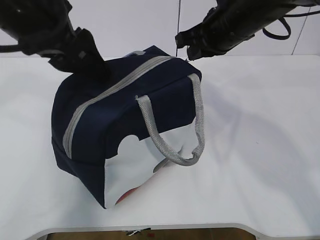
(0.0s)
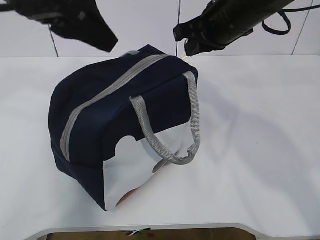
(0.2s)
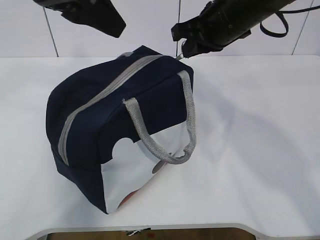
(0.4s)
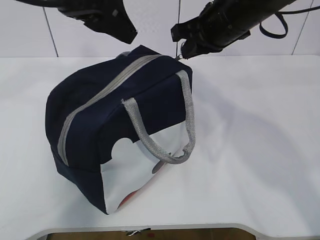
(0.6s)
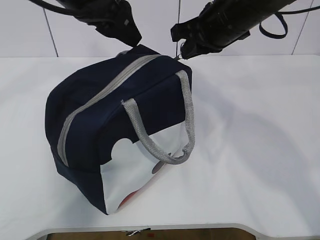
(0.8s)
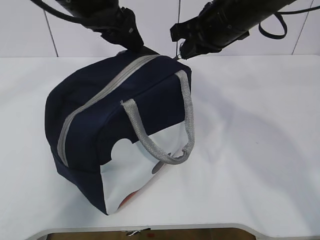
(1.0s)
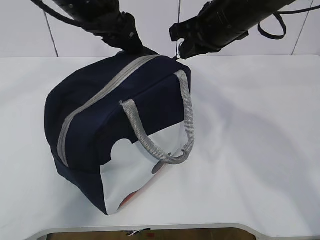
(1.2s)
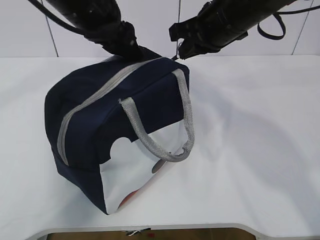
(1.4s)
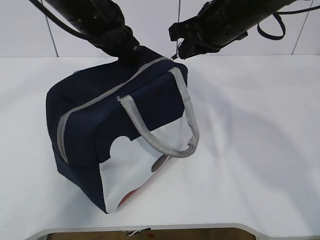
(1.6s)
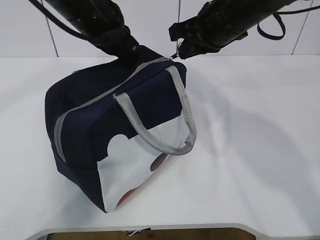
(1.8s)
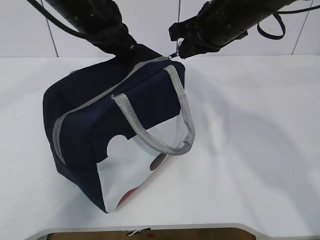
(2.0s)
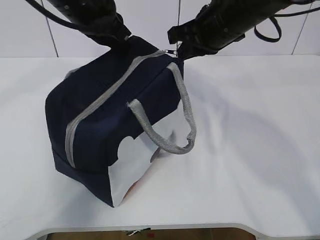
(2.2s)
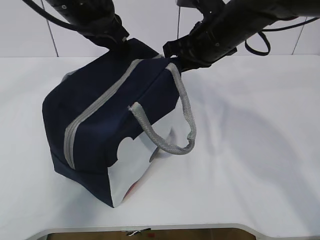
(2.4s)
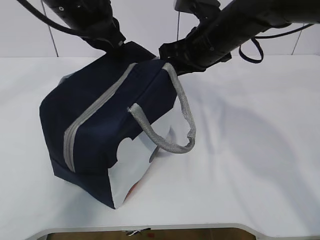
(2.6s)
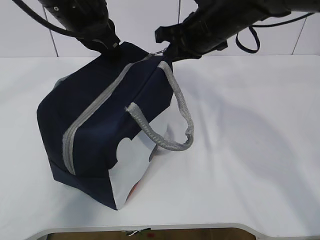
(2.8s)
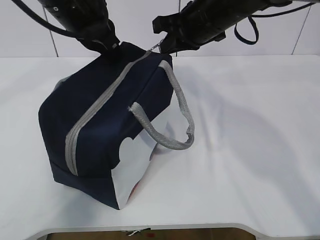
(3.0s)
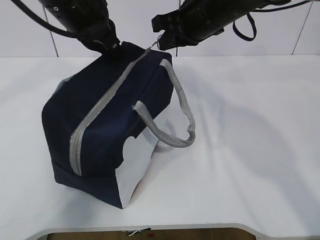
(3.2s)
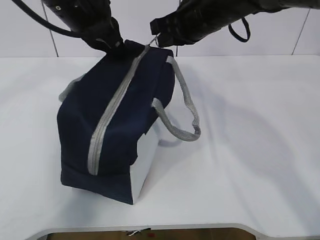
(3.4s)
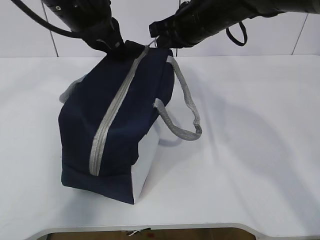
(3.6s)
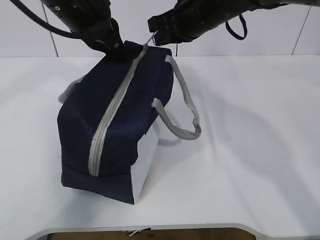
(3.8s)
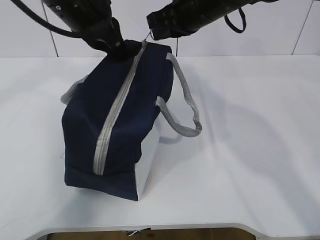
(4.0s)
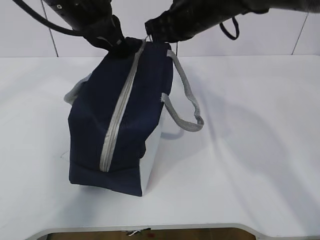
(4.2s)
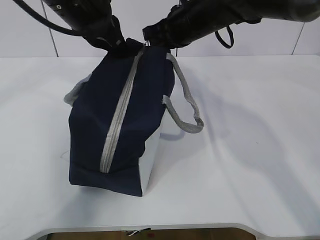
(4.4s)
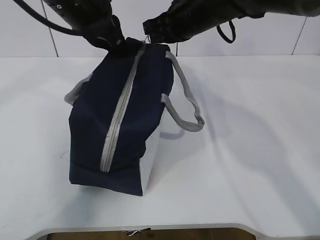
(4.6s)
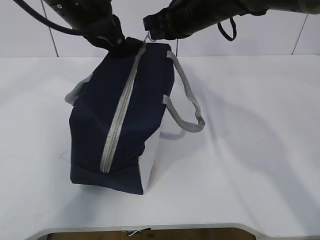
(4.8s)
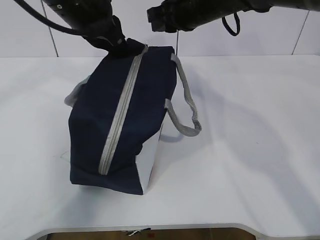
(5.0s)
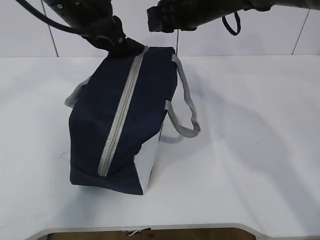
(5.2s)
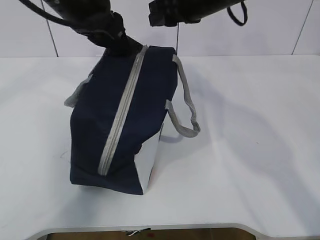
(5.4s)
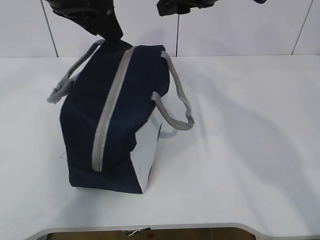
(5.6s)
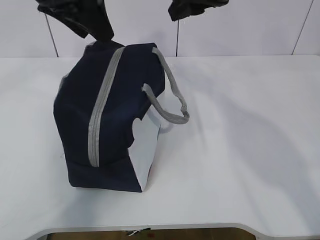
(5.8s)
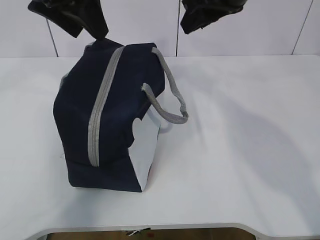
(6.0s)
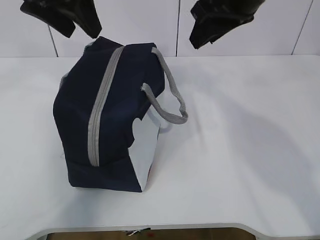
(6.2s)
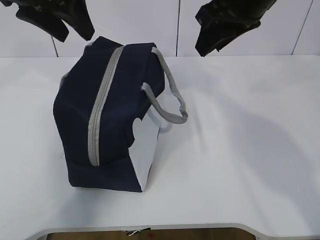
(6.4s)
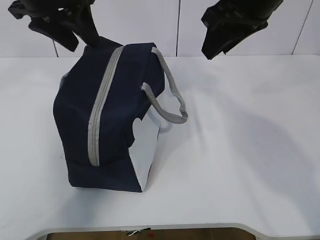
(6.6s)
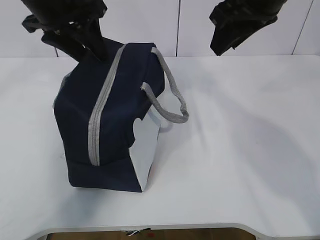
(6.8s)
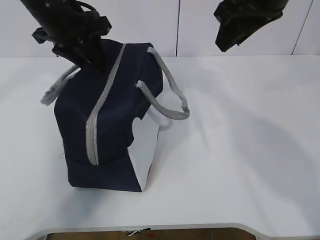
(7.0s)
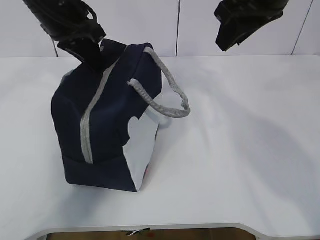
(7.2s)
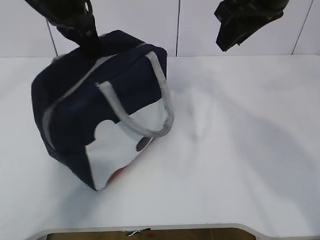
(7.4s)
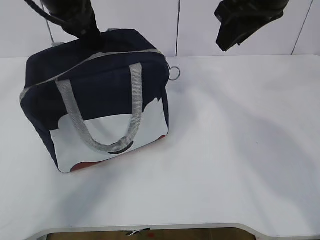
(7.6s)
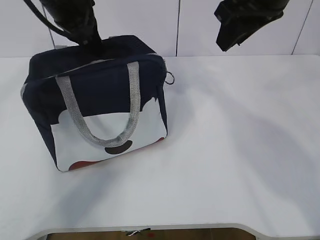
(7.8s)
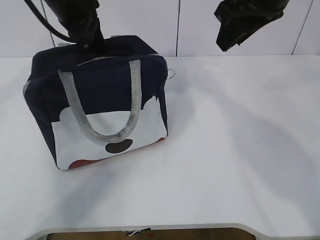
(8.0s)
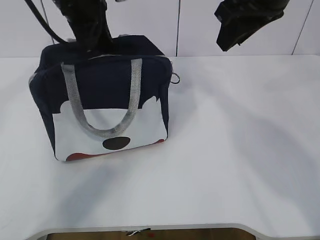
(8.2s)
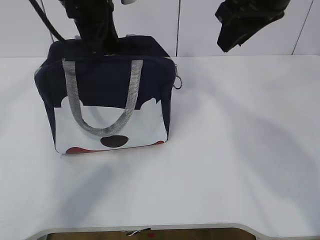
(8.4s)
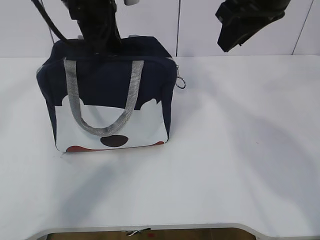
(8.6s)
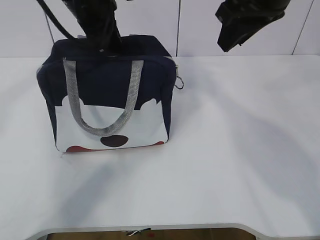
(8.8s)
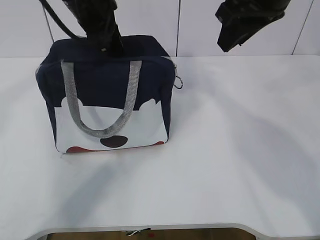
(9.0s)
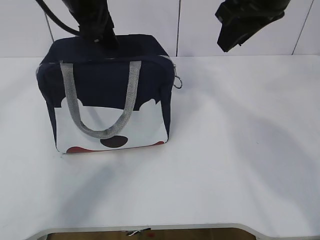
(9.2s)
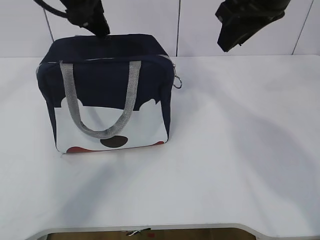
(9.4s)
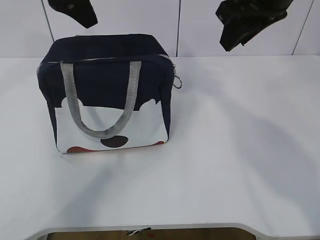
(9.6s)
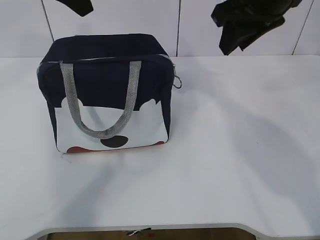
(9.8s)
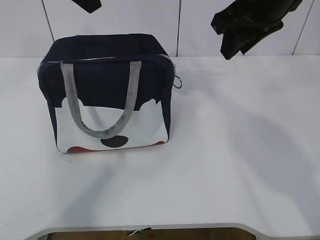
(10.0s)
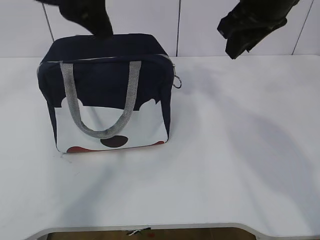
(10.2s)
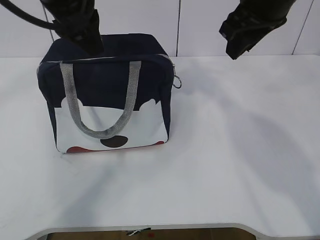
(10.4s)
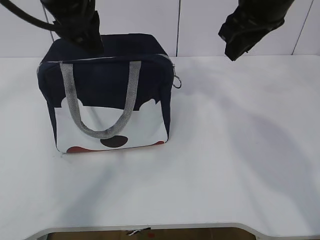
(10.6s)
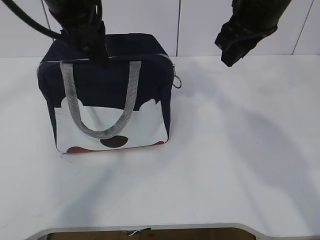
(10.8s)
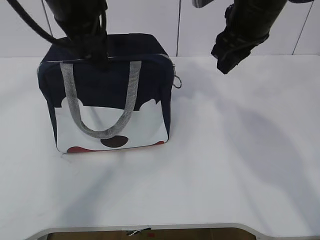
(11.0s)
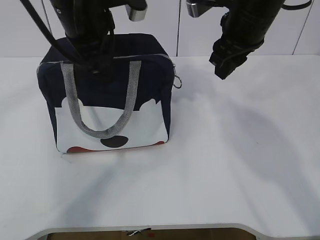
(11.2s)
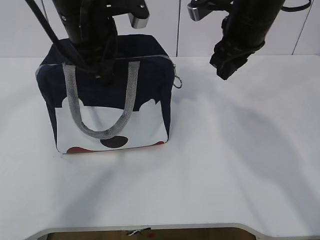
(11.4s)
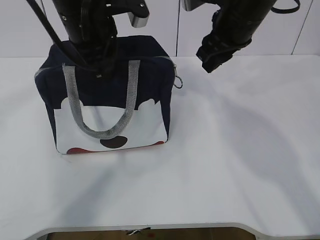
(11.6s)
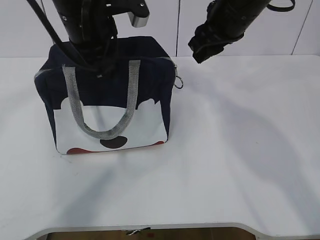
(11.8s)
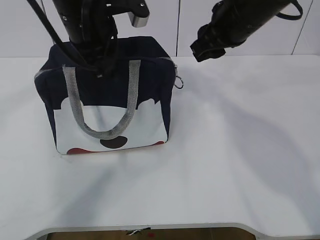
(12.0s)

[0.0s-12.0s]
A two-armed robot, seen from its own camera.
Step, 0.0s to 7.2s: Pull the zipper with your right hand.
Step, 7.4s to 8.0s: Grab the lunch bag with your left hand.
0.0s to 1.6s: The left gripper shifts some 10 cm forward, and closes up.
1.6s to 3.0s: The grippers move only a little.
4.4s to 6.0s: The left gripper travels upward by some 5 cm, and opens; the right gripper goes roughly 10 cm upward and backward, and opens its fingers.
6.0s to 7.6s: The left gripper is displaced forward by approximately 5 cm, and closes up.
7.6s to 9.0s: The left gripper opens its fingers.
9.0s to 10.4s: The left gripper moves backward and upward, some 10 cm.
10.4s to 12.0s: The left gripper is displaced downward by about 5 cm, and closes its fingers. Meanwhile the right gripper moves roughly 5 cm.

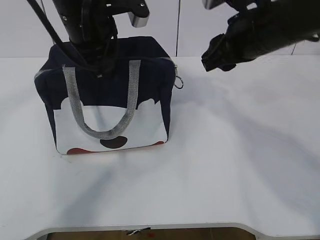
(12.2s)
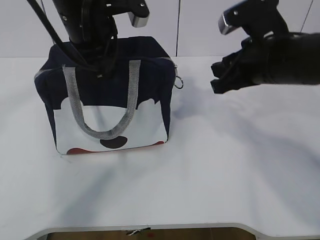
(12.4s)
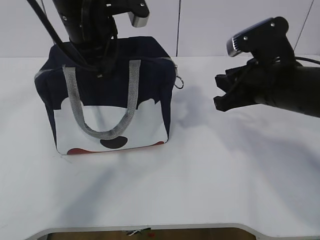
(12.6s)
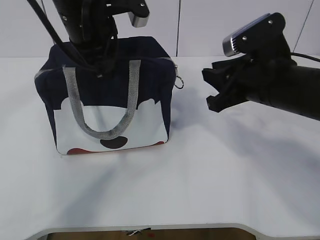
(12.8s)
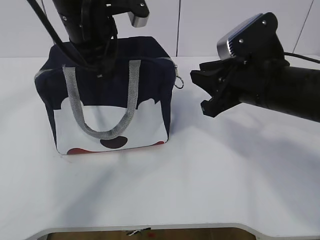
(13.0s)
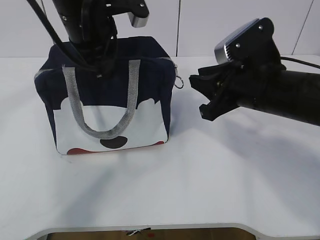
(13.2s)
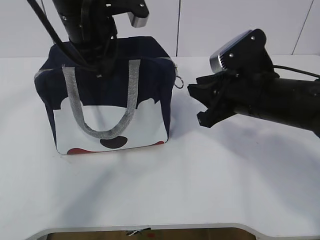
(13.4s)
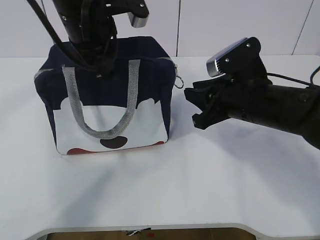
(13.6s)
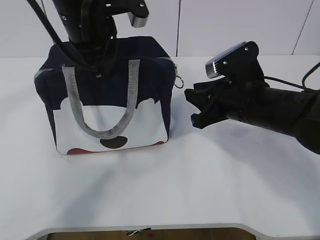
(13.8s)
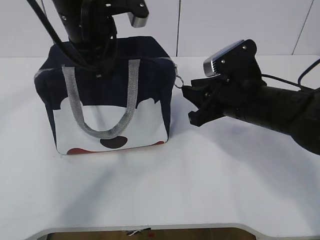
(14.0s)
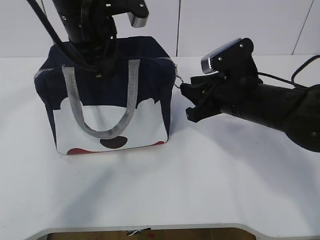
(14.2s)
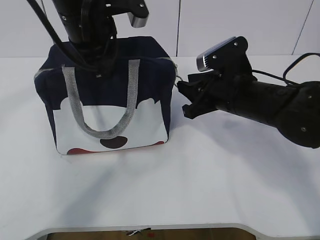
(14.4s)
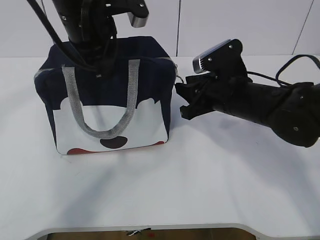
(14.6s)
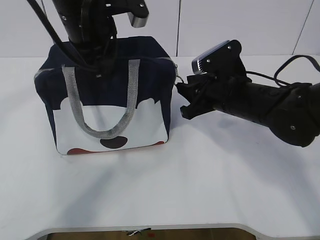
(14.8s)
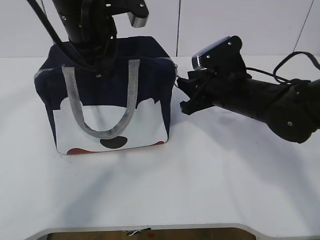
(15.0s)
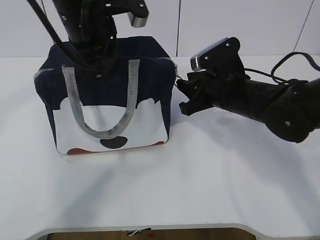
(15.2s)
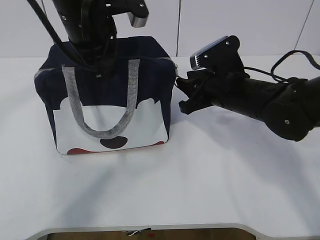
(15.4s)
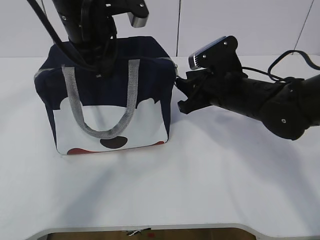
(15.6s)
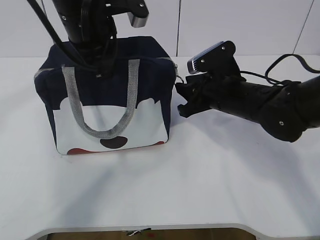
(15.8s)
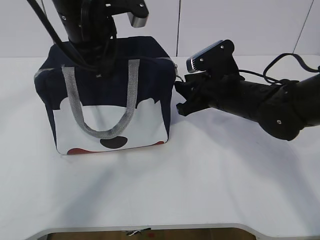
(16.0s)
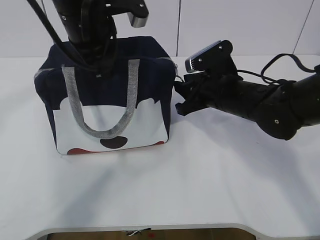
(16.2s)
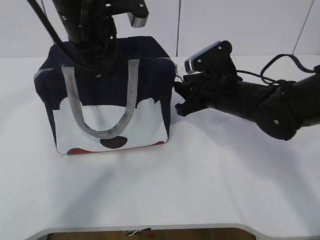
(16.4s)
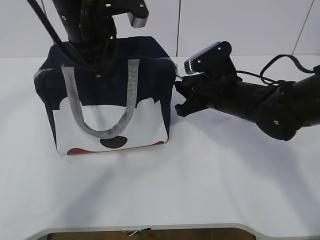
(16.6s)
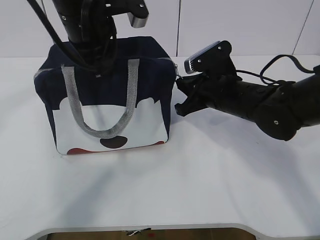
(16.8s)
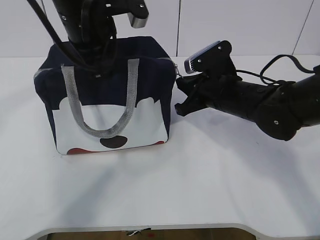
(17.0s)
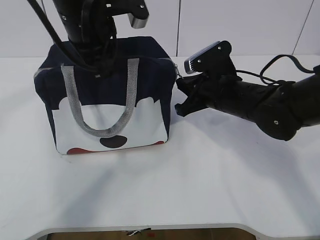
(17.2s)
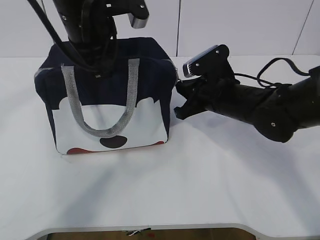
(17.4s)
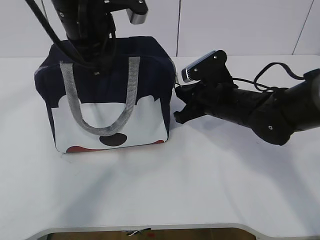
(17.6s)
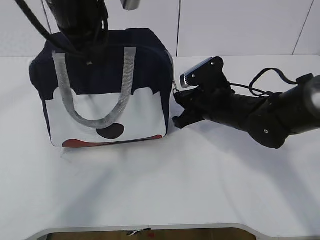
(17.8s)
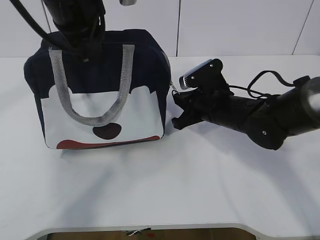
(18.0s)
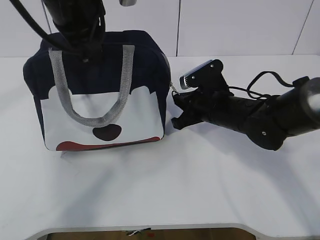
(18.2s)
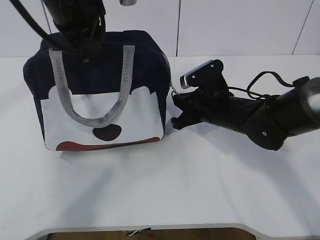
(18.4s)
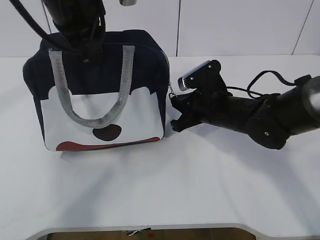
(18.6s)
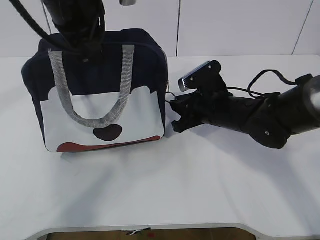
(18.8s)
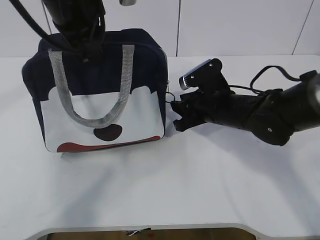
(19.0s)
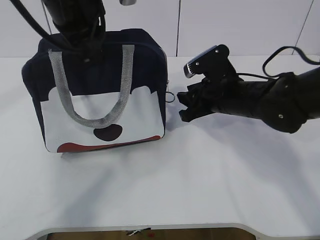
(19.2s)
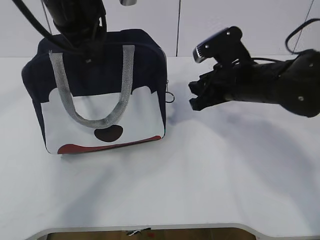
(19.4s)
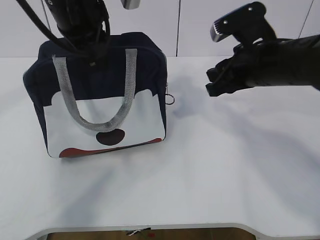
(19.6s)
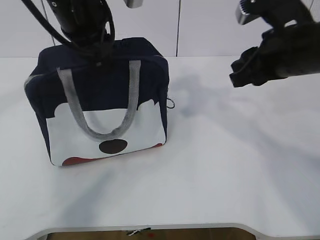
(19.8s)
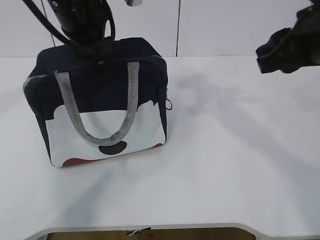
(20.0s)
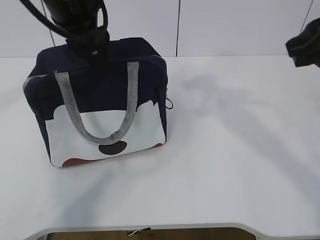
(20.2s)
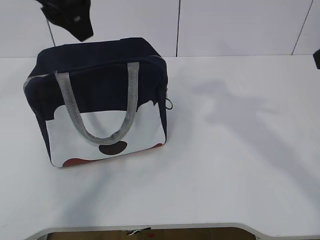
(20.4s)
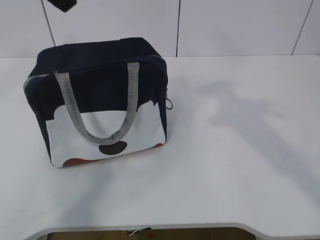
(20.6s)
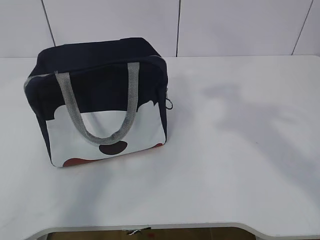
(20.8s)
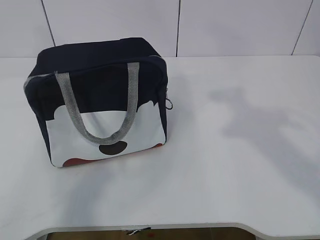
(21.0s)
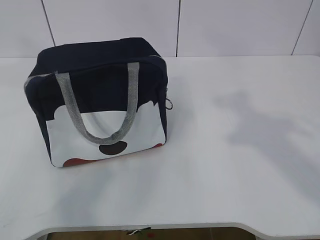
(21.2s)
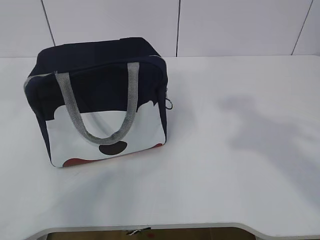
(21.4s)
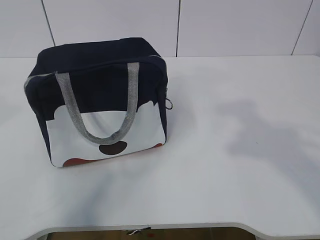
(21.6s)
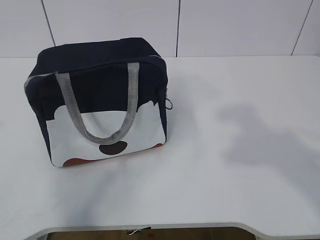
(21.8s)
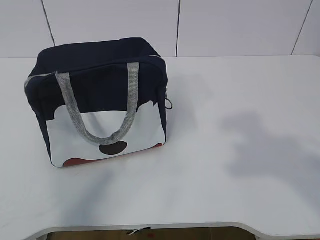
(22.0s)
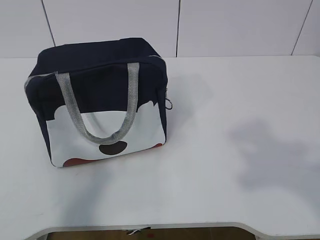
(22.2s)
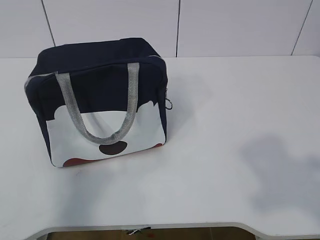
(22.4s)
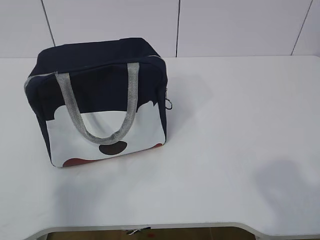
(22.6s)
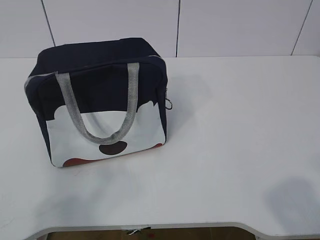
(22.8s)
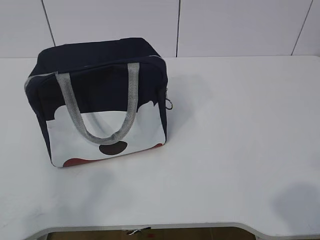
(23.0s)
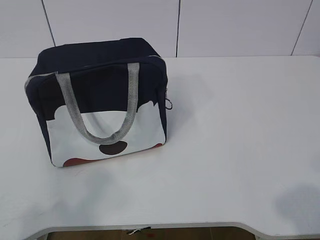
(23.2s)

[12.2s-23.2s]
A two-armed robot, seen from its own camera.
12.2s to 13.8s: The right gripper is displaced downward by about 10 cm.
13.8s to 15.4s: The grippers stay close to where they were, moving slightly.
15.4s to 17.0s: The right gripper closes.
18.4s to 20.0s: The left gripper opens its fingers. Meanwhile the right gripper heads upward and backward, covering about 20 cm, and opens up.
20.0s to 21.6s: The right gripper heads backward and upward, covering roughly 20 cm; the left gripper goes some 30 cm backward, to the left and upward.
21.6s to 23.2s: The left gripper is displaced downward, backward and to the left by some 25 cm, while the right gripper shifts some 15 cm downward and backward.
